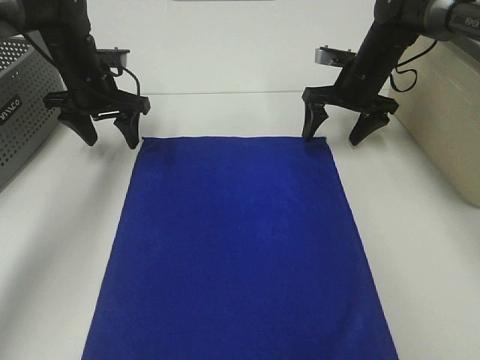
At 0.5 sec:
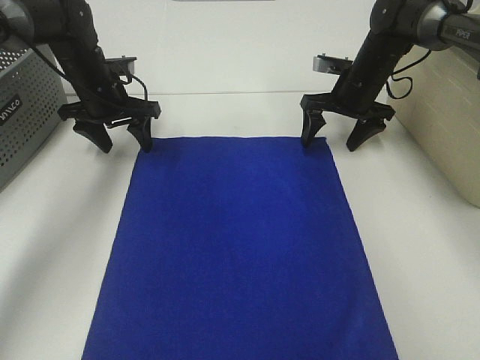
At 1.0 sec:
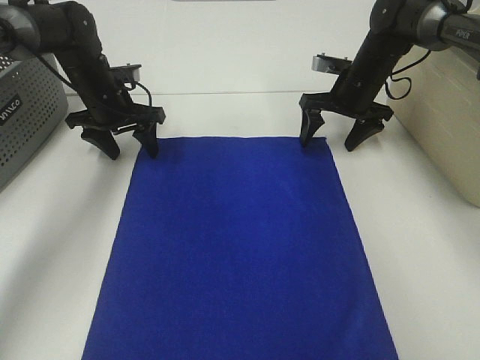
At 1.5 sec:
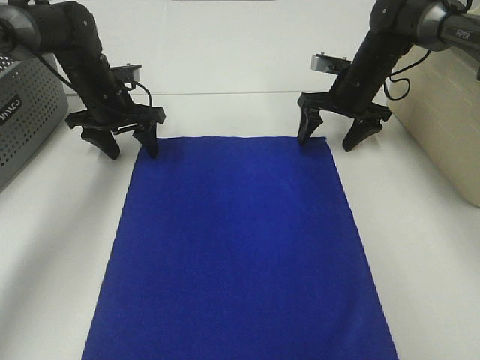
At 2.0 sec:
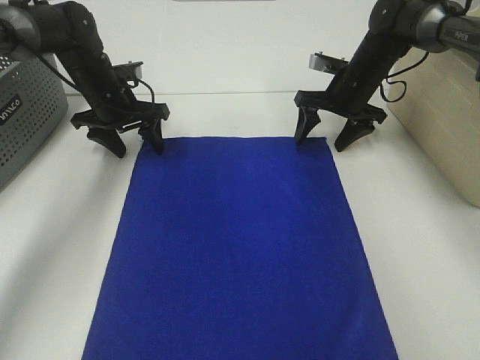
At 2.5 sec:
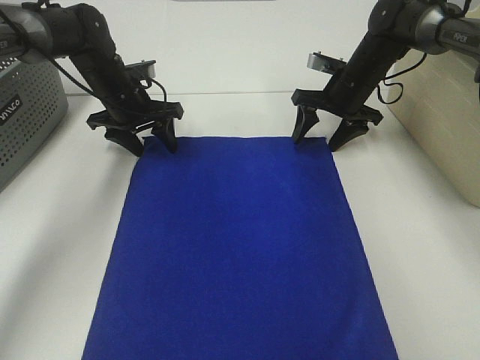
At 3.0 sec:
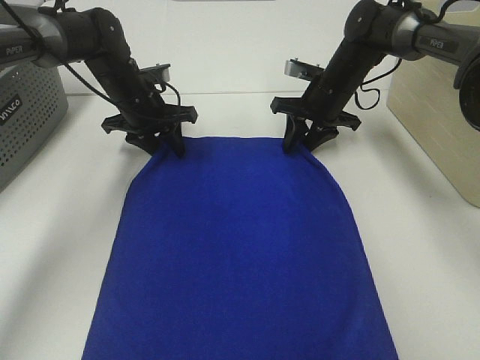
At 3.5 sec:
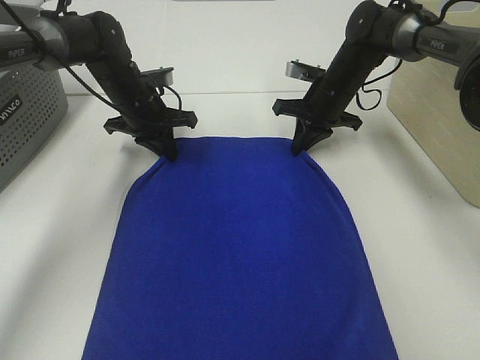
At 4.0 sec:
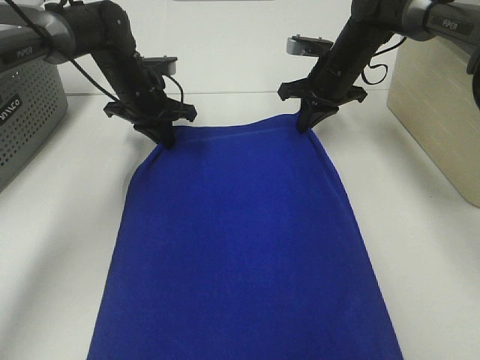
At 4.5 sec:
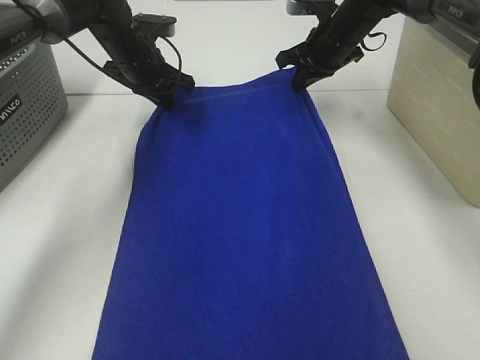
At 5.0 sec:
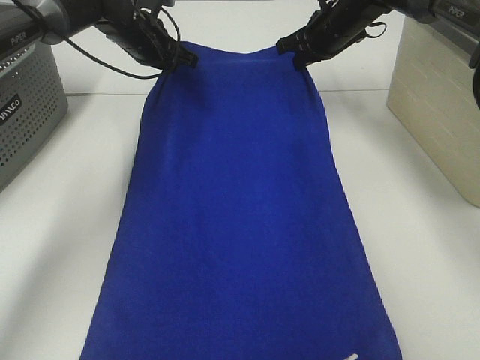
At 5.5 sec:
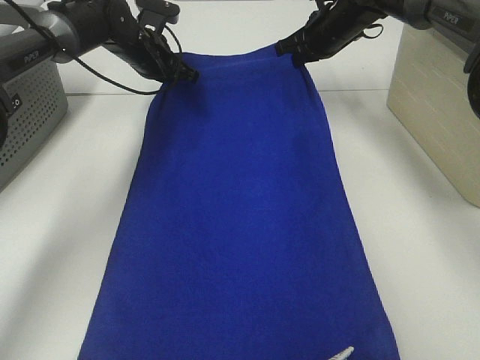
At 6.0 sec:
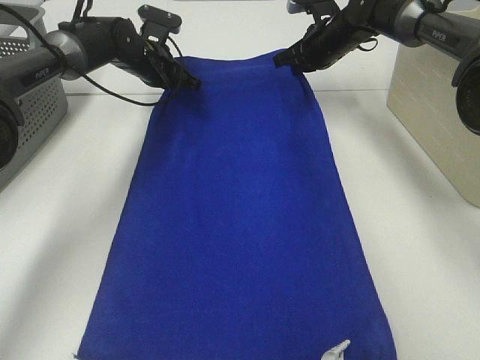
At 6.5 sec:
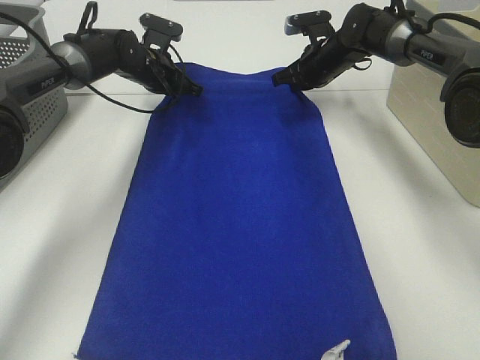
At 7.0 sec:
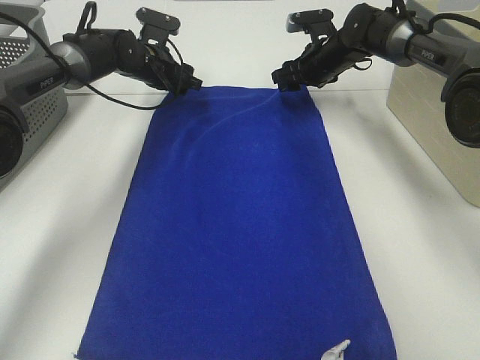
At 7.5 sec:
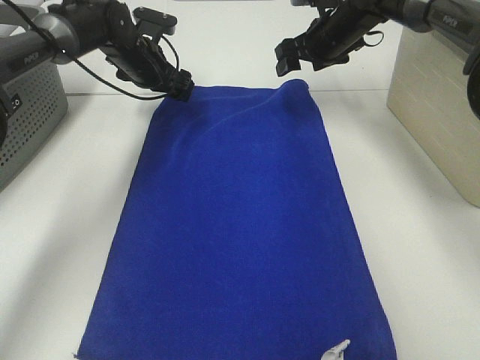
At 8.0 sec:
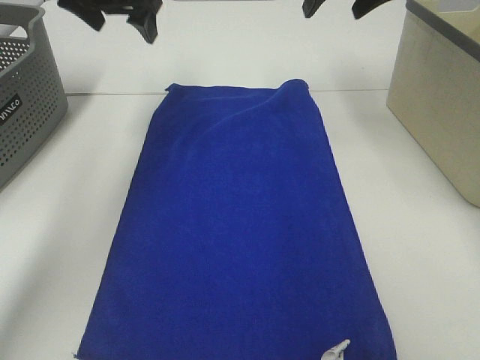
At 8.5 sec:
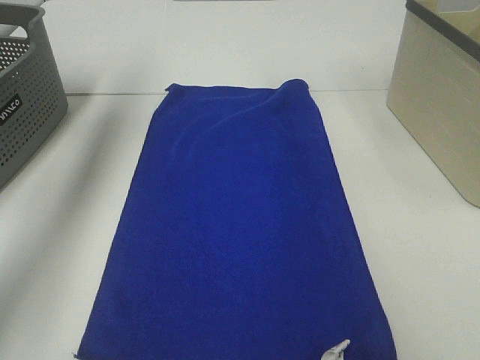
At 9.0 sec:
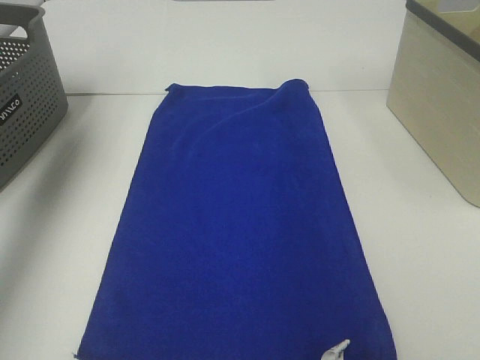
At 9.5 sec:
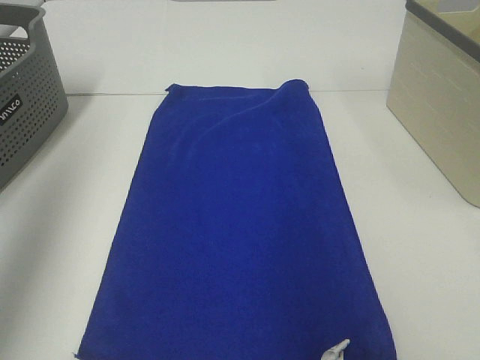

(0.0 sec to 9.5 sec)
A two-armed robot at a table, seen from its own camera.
Task of the whole recording: Remove the towel and place it.
0.0 sec - 2.0 sec: There are only small adjustments of the grippers.
2.0 sec - 4.0 sec: The right gripper closes its fingers, while the left gripper closes up.
4.0 sec - 5.5 sec: The left gripper moves forward, approximately 5 cm. Meanwhile the right gripper changes place by approximately 5 cm.
5.5 sec - 7.5 sec: The left gripper opens its fingers; the right gripper opens.
7.5 sec - 9.5 sec: The right gripper is displaced backward and upward by approximately 40 cm, while the left gripper moves backward, upward and to the left, about 50 cm.

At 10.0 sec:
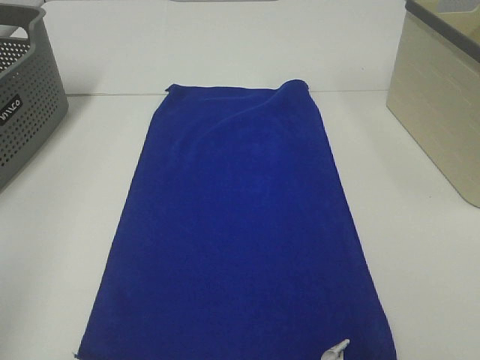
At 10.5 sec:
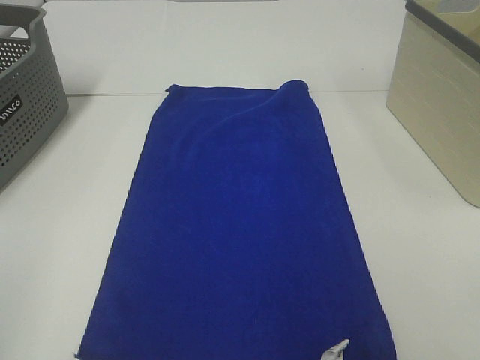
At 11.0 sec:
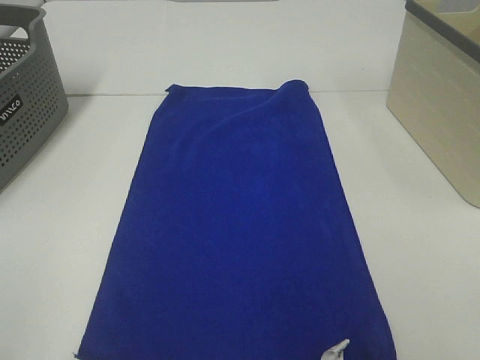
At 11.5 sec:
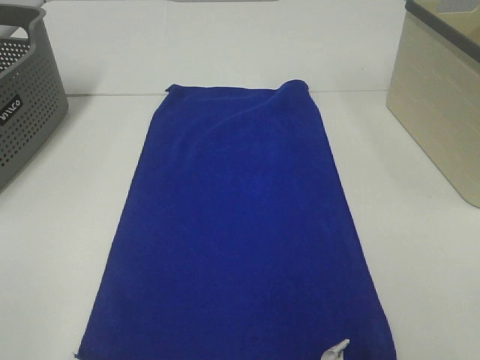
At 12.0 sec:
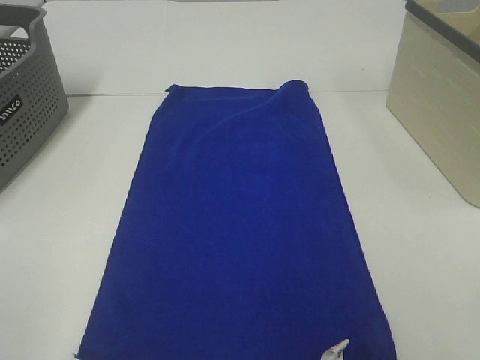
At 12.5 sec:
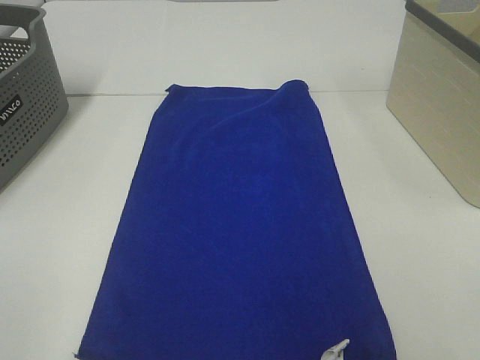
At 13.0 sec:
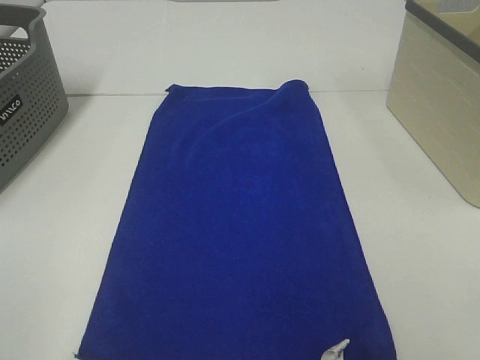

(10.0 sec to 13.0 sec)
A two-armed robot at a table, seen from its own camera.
Task of the whole recording: Remove the towel and place it.
11.5 sec - 13.0 sec: The two grippers keep their place.

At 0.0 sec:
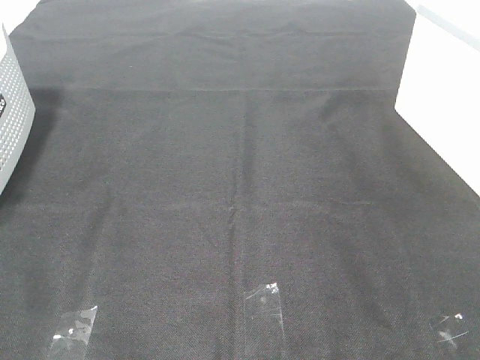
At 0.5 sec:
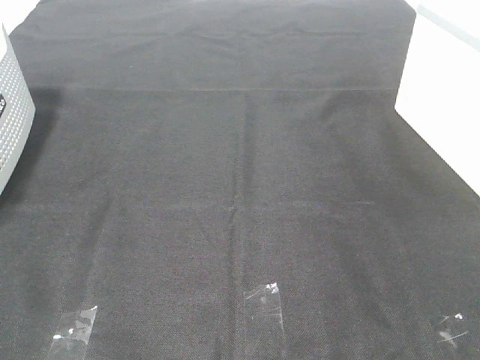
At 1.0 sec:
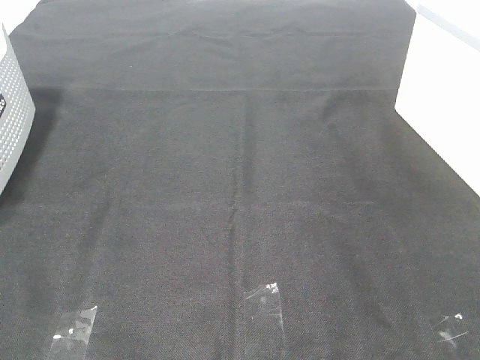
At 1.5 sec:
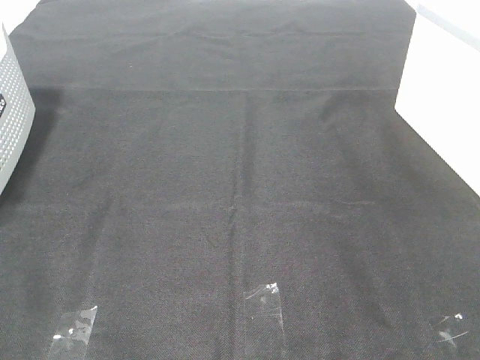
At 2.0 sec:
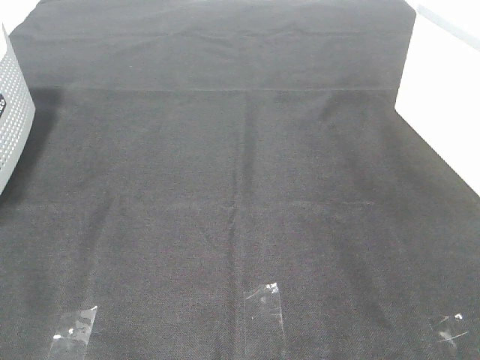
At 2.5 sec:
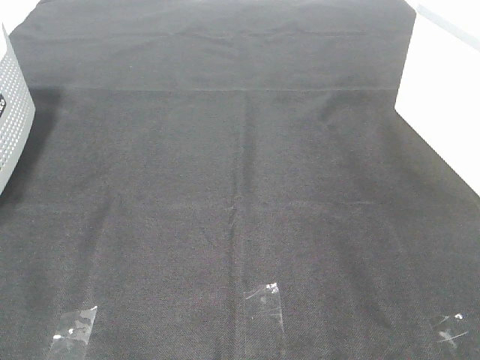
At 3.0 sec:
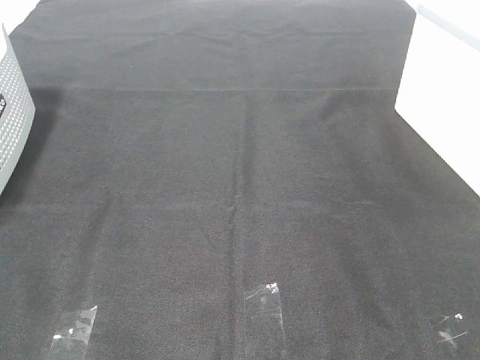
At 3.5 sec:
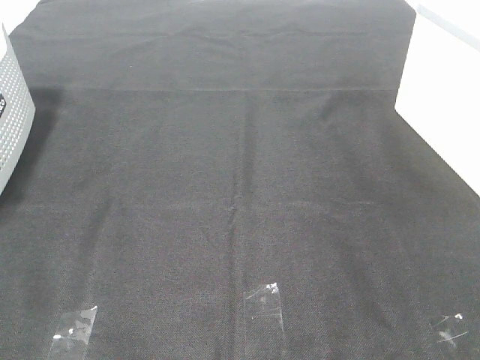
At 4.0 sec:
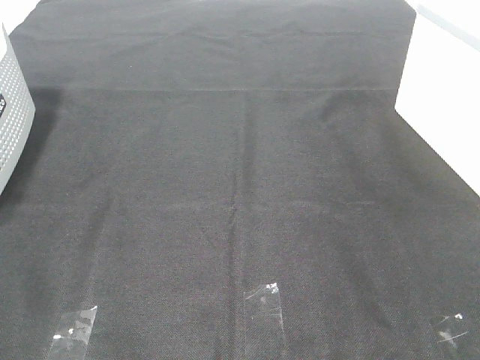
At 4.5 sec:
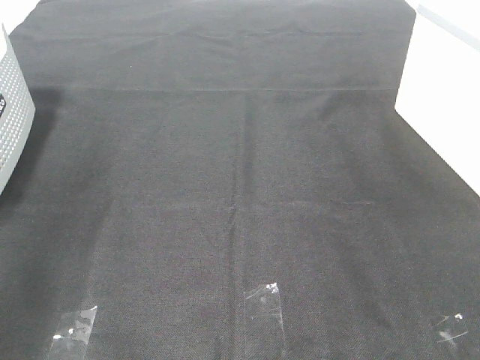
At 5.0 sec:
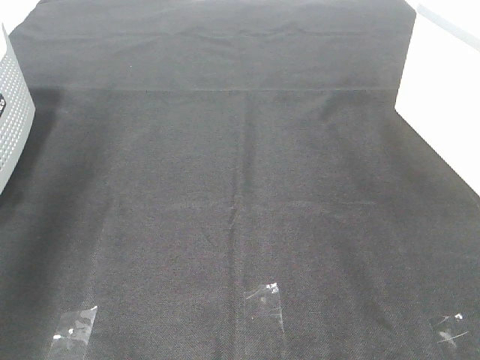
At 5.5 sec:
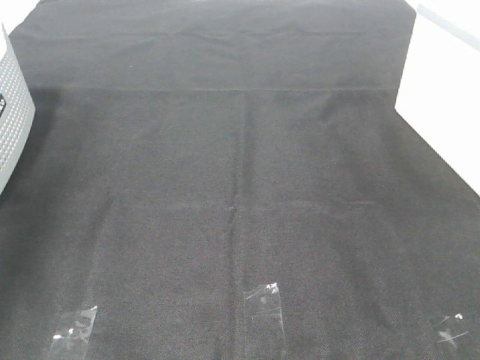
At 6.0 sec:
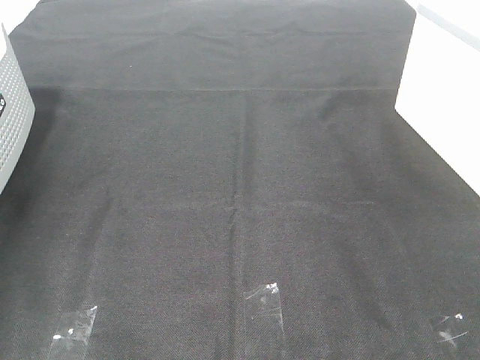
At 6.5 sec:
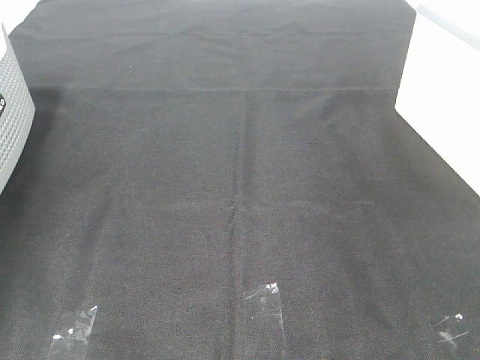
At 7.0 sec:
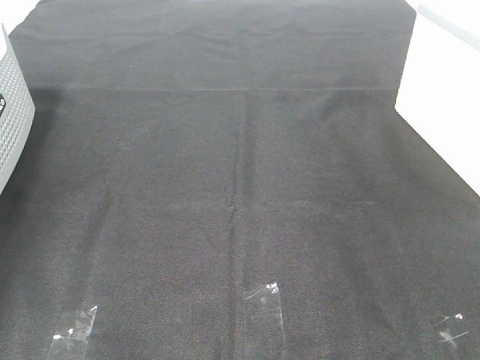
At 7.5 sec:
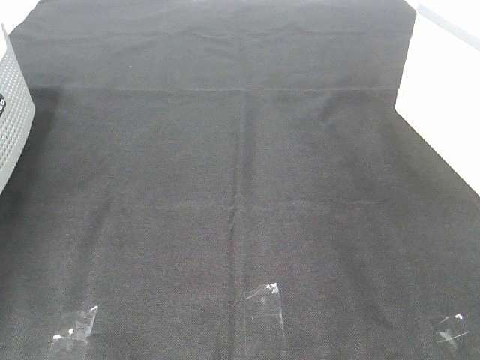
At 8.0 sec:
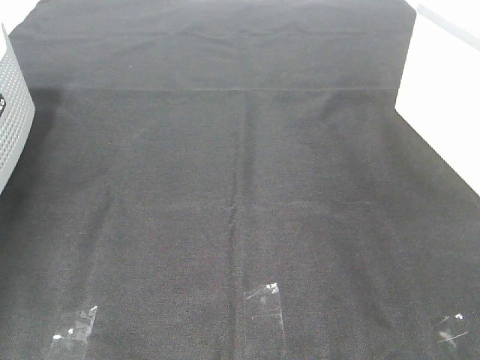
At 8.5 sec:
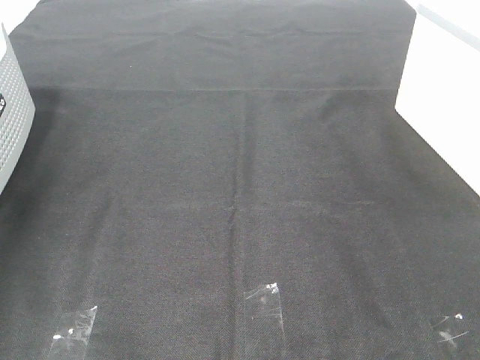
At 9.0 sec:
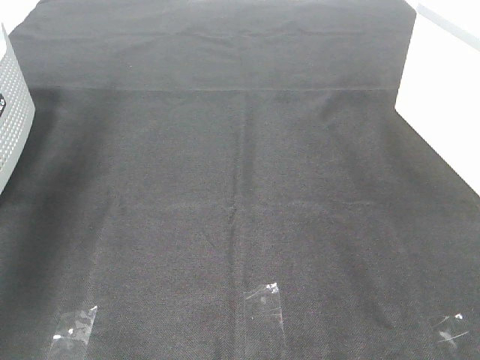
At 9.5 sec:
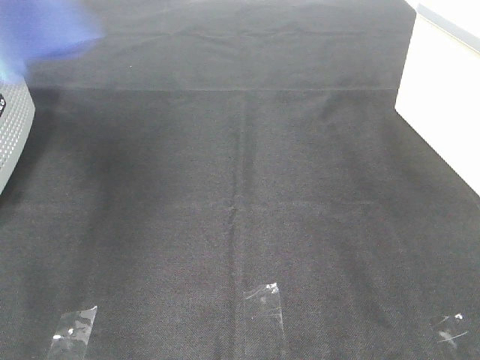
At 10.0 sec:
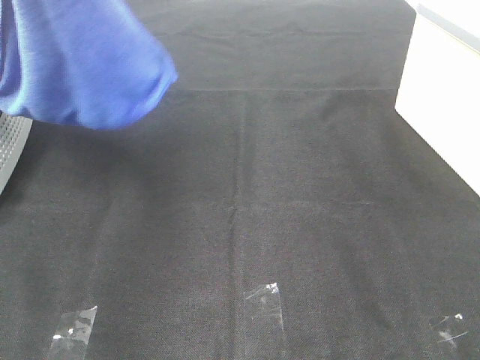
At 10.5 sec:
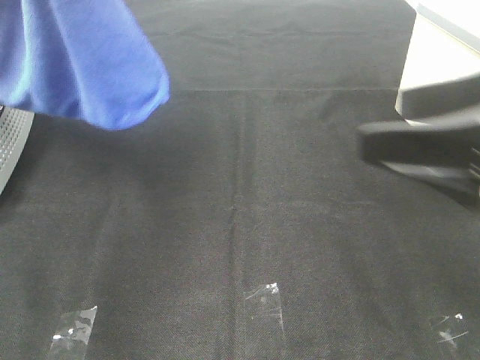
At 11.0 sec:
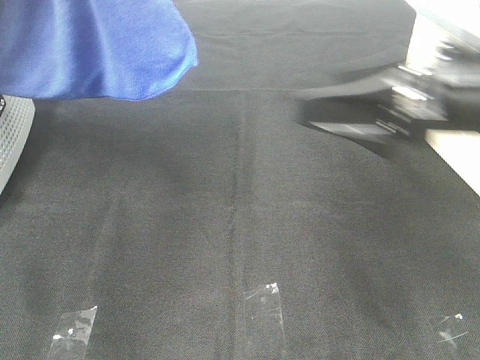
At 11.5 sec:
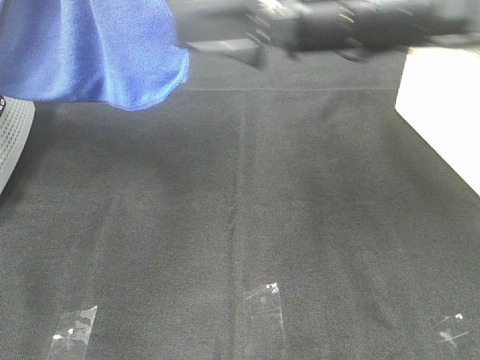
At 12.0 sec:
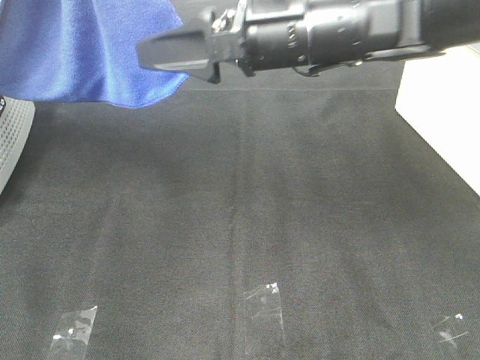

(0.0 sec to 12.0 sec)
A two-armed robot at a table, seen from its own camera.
Task of the whole recording: Remove the towel and place it.
0.0 sec - 2.0 sec: The two grippers keep their place.
4.0 sec - 6.0 sec: The left gripper shifts approximately 40 cm forward.
8.0 sec - 10.0 sec: The right gripper shifts by approximately 5 cm. The left gripper moves to the right, upward and backward, roughly 40 cm.
10.0 sec - 12.0 sec: The right gripper travels forward and to the left by approximately 35 cm.

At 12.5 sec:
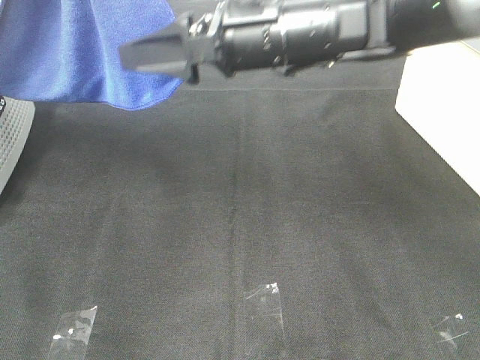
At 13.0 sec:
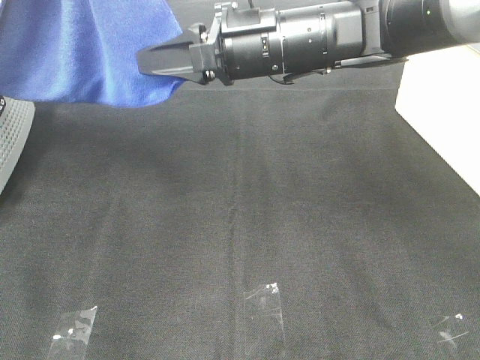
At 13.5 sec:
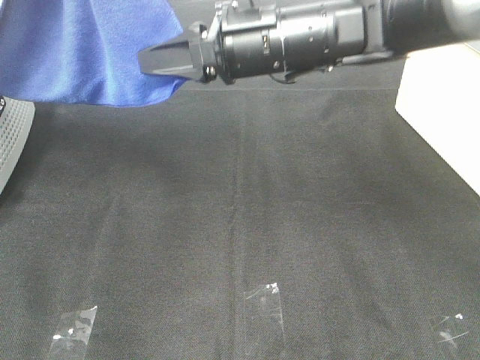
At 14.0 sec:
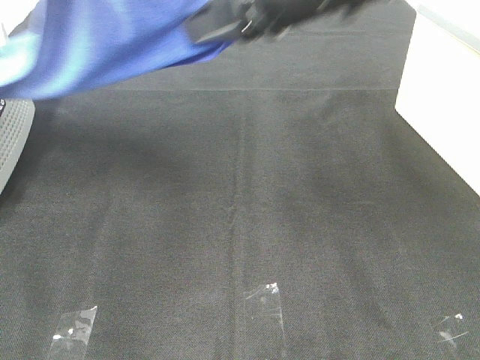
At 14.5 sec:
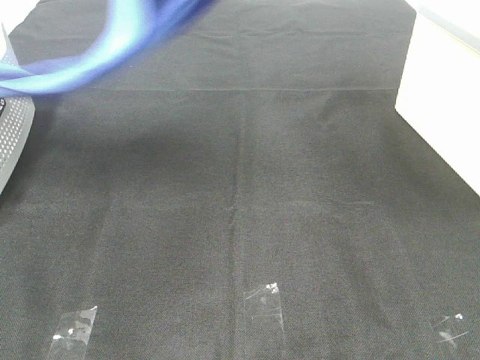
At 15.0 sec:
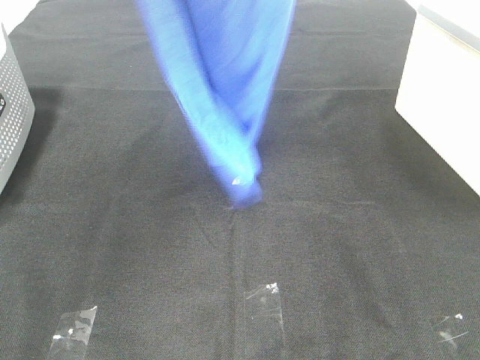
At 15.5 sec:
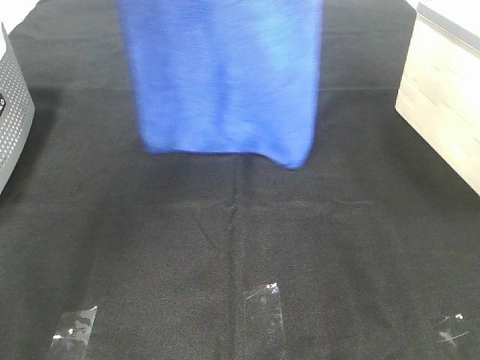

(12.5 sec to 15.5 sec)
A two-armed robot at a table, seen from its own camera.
Task of the whole recording: Remove the towel and place it.
12.5 sec - 14.0 sec: The right gripper moves upward, some 10 cm, and closes its fingers.
14.0 sec - 15.5 sec: The left gripper travels forward by roughly 10 cm, while the right gripper travels upward by approximately 15 cm.
